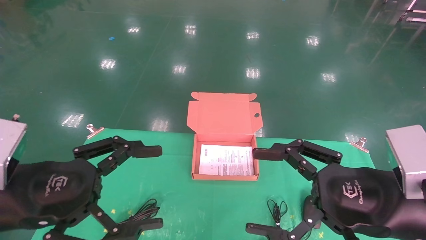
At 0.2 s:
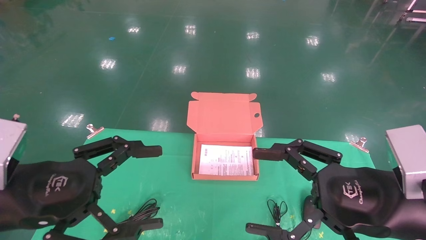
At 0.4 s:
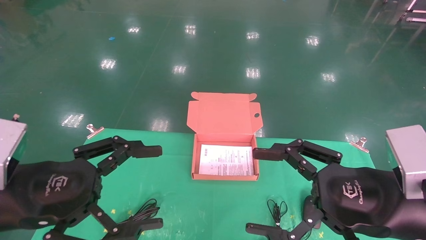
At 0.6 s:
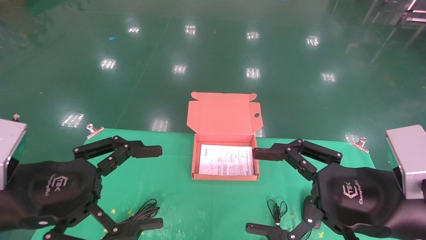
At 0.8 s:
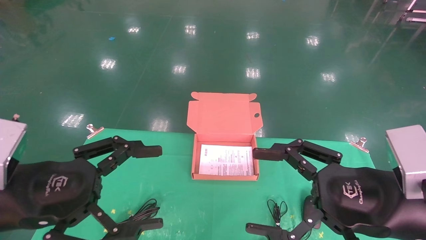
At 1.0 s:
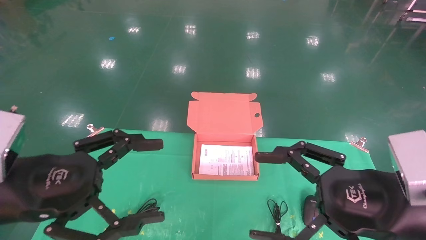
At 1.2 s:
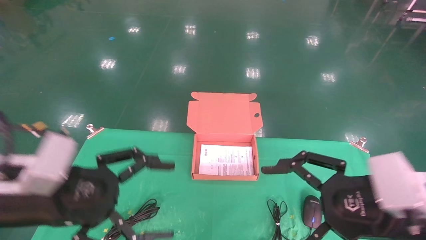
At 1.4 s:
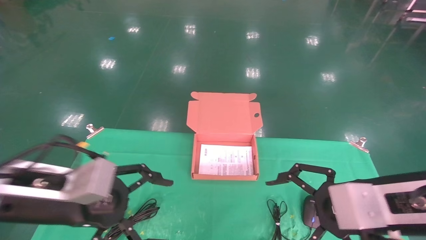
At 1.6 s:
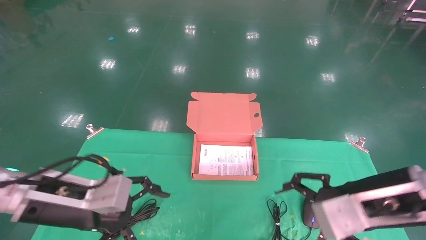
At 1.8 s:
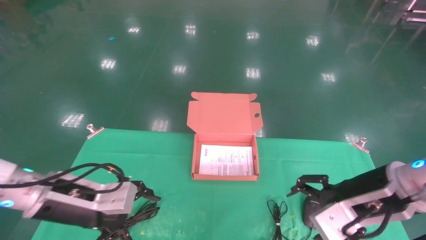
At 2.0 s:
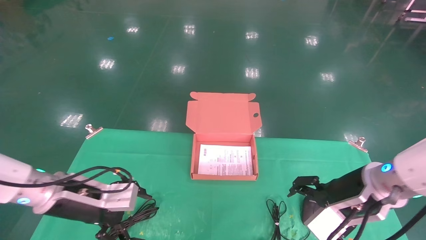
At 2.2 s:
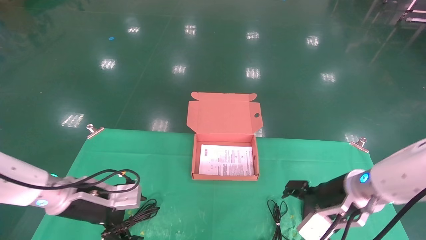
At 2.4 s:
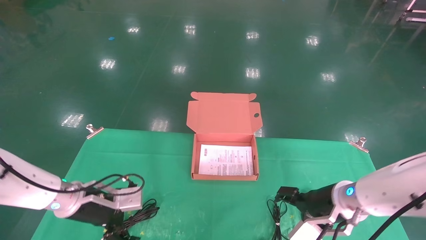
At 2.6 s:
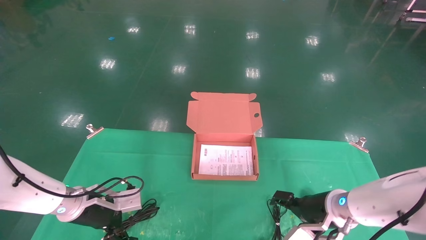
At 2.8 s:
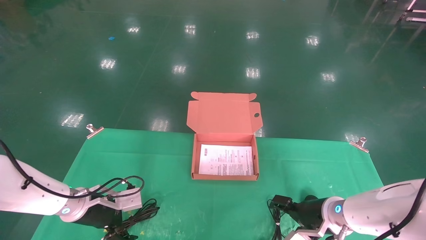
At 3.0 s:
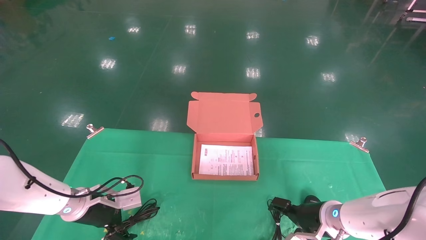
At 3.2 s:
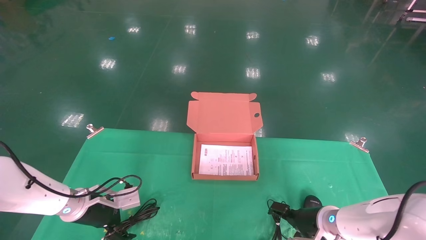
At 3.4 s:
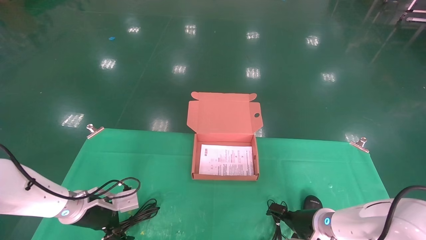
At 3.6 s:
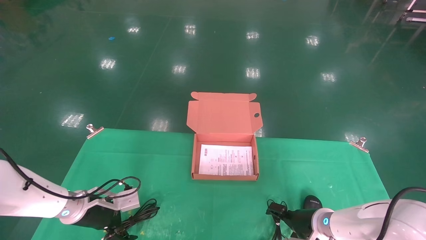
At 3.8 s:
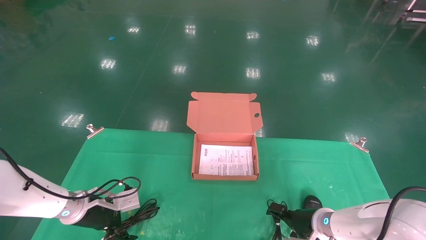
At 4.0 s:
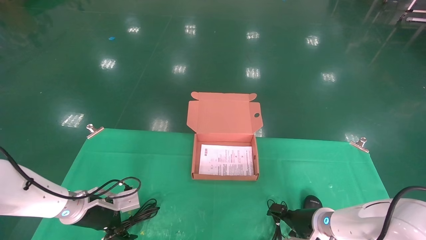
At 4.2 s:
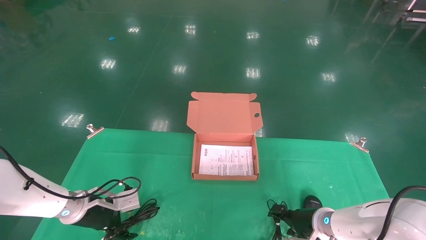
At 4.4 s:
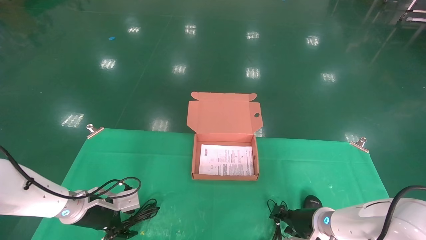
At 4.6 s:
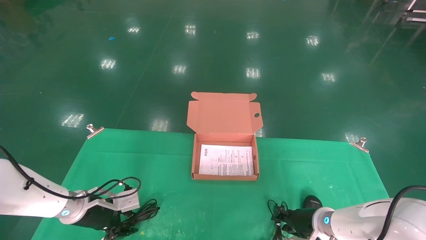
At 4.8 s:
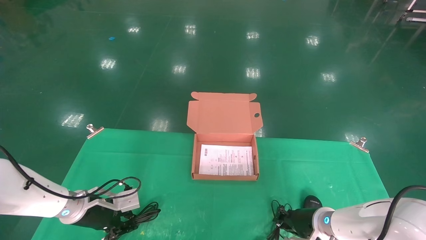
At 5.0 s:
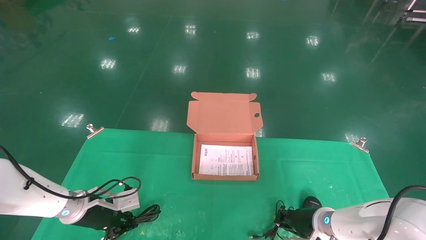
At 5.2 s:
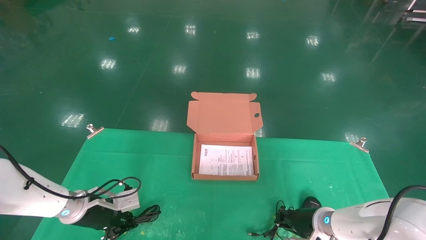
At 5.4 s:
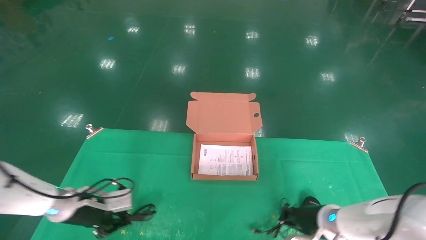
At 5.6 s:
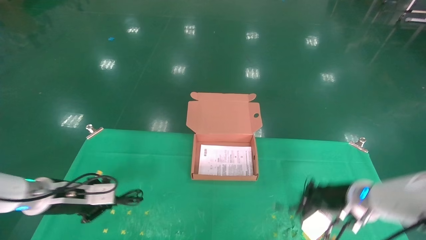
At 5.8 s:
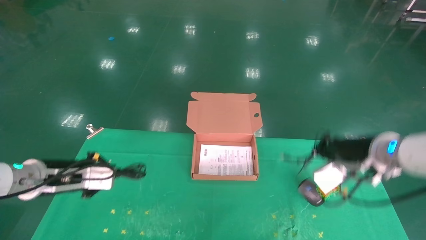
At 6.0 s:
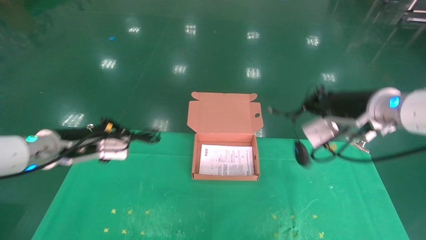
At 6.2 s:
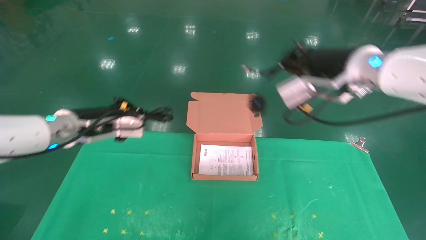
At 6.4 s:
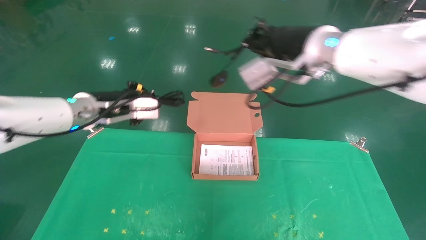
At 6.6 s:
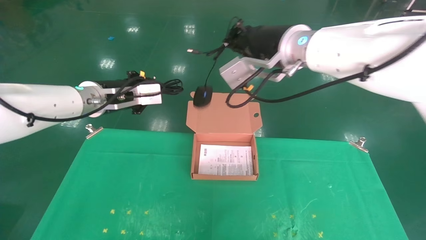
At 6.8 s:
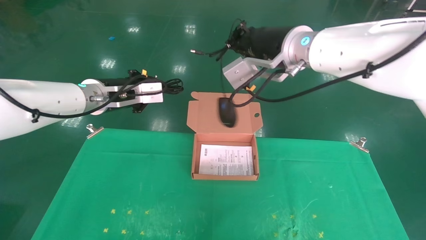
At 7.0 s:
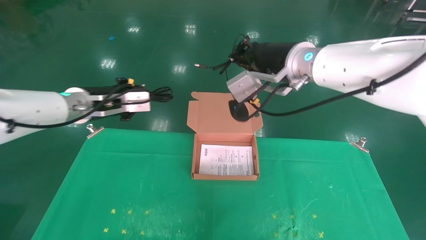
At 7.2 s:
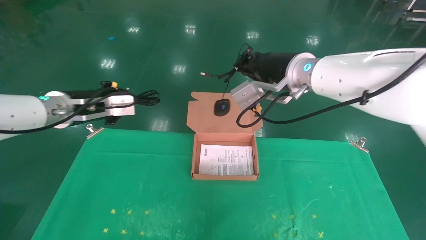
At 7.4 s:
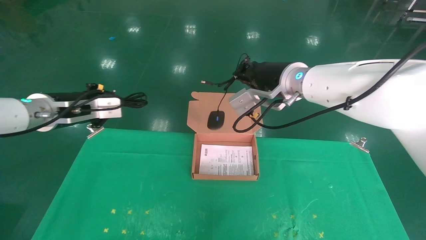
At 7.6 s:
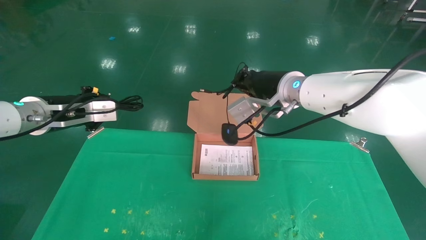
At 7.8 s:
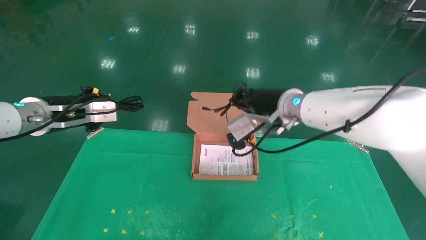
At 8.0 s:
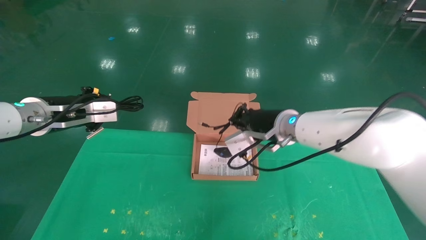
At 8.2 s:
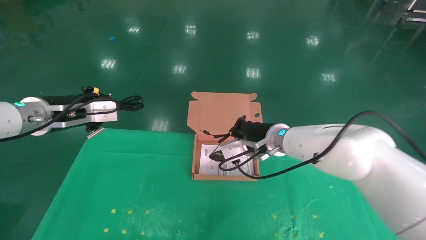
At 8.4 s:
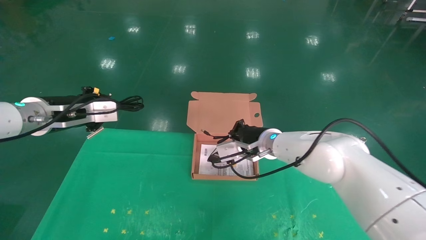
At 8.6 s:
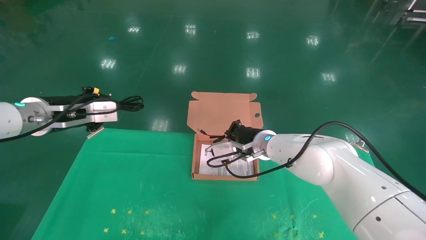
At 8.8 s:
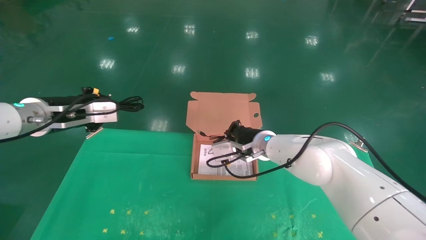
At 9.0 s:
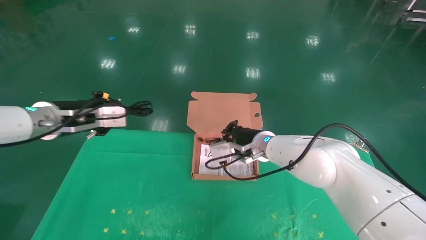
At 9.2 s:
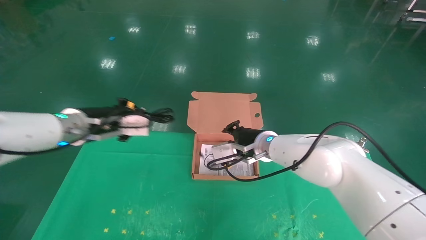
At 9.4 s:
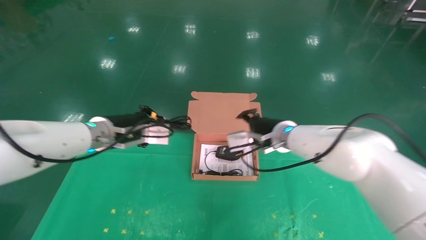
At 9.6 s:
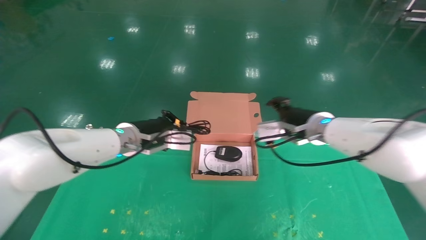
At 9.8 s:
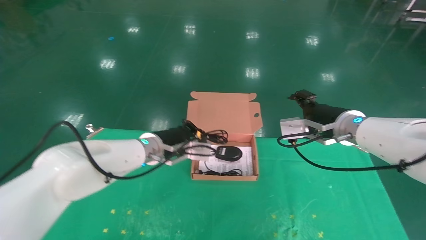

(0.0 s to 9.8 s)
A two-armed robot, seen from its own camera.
Task of the whole recording: grasp data cable left put into box grasp mouse right put into box.
Step, 1.2 s - 5.0 s: Grab and pick up both the mouse and power cord from the accessory packaging area at the same time.
0.0 s - 1.4 s: The left gripper changes place by roughly 5 cm.
1.4 s - 2.8 s: The right gripper heads downward and forward, covering approximately 20 cm. The left gripper goes roughly 20 cm forward and downward.
2.8 s - 4.2 s: The grippers make only small movements.
4.2 s - 5.6 s: The left gripper travels upward by roughly 10 cm, and closes its fingers, while the right gripper goes some 15 cm upward, and closes.
5.6 s - 7.0 s: The right gripper heads upward and to the left, covering approximately 25 cm; the left gripper moves upward and to the right, roughly 15 cm.
7.0 s - 8.4 s: The left gripper travels to the left by about 5 cm. The right gripper moves downward and forward, approximately 20 cm.
8.4 s - 9.8 s: The left gripper travels to the right and downward by roughly 20 cm. The right gripper travels to the right by some 15 cm, and opens up.

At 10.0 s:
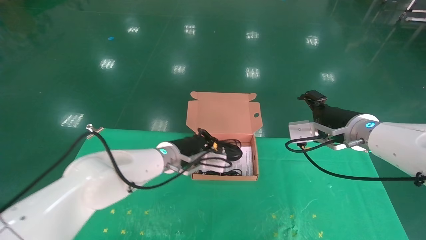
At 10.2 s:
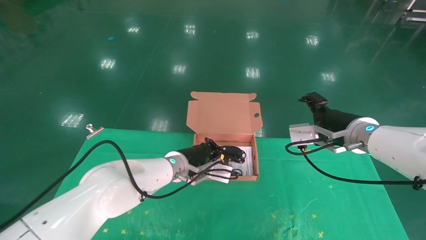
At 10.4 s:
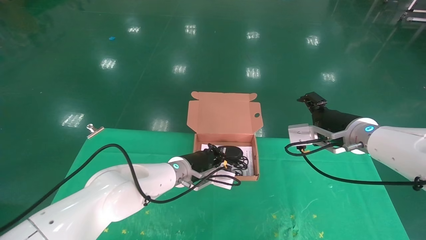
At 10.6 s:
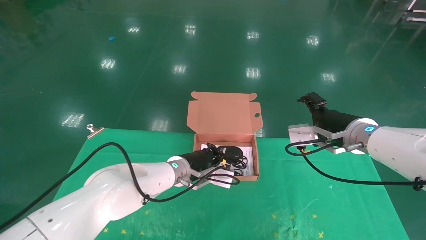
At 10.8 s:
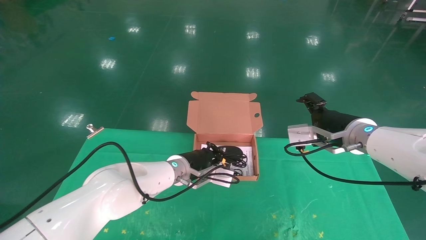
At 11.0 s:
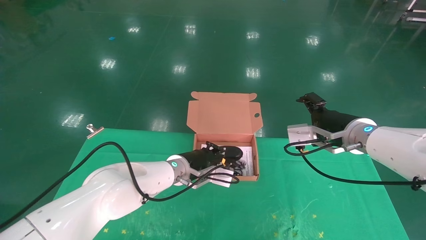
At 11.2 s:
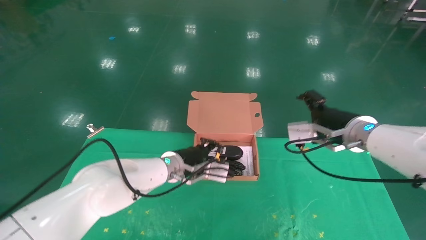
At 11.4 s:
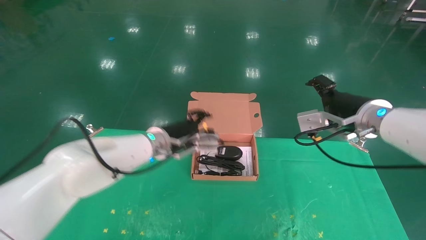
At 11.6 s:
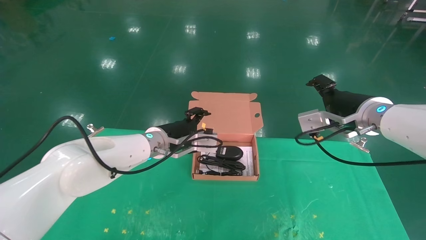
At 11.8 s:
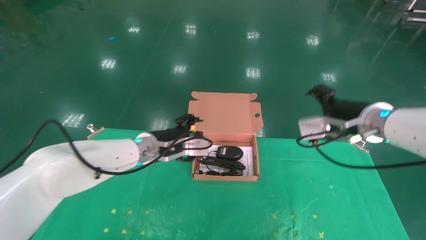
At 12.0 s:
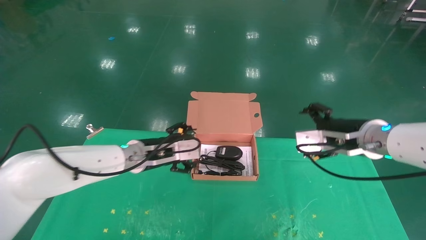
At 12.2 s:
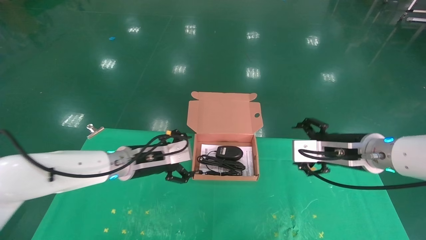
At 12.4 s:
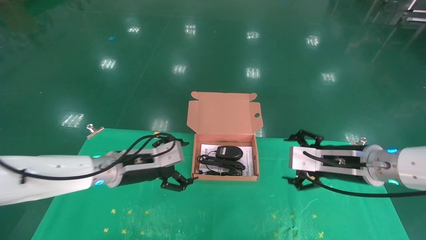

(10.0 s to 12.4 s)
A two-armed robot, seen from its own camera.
Task of the whole recording: grasp data cable left put into box grasp mouse right put into box.
10.0 s - 11.2 s: The grippers move only a little.
11.2 s - 12.4 s: The left gripper travels to the left and backward by roughly 10 cm, and opens up, while the right gripper ends up approximately 5 cm from where it was.
